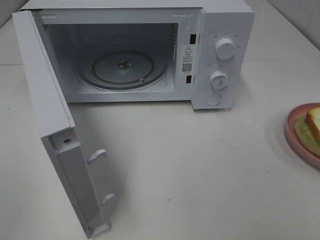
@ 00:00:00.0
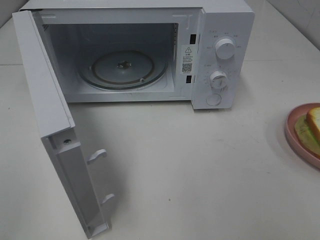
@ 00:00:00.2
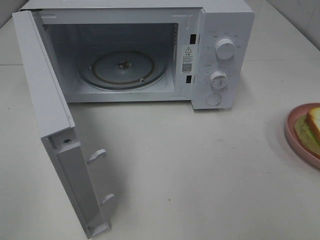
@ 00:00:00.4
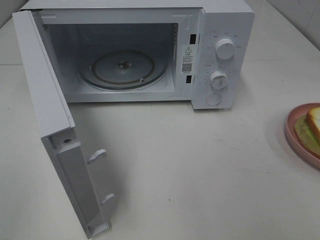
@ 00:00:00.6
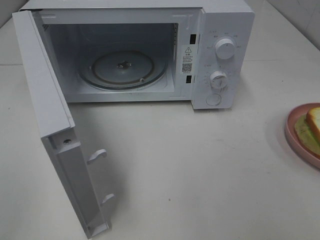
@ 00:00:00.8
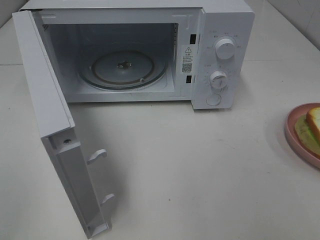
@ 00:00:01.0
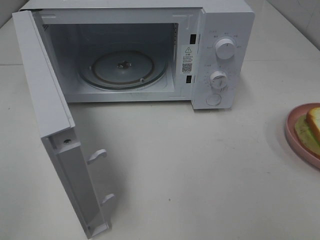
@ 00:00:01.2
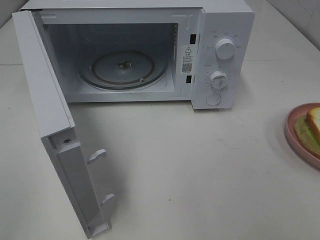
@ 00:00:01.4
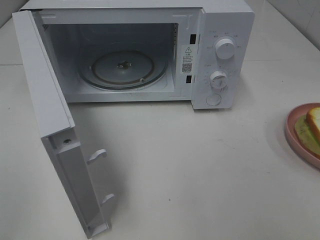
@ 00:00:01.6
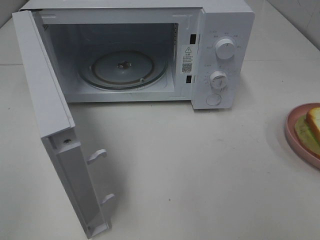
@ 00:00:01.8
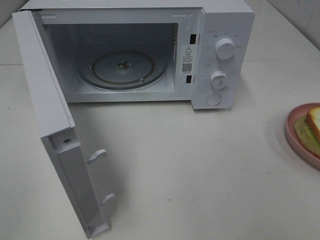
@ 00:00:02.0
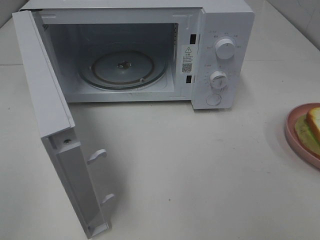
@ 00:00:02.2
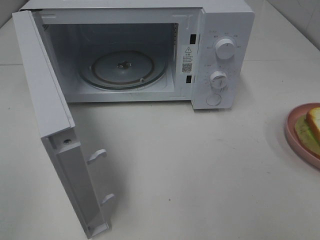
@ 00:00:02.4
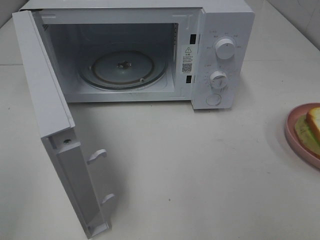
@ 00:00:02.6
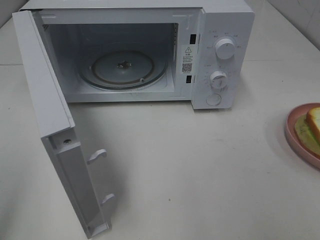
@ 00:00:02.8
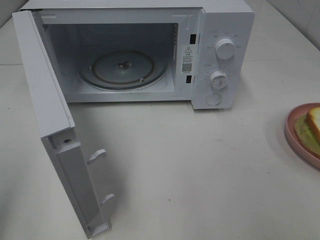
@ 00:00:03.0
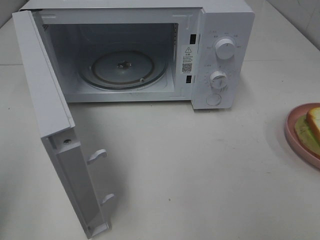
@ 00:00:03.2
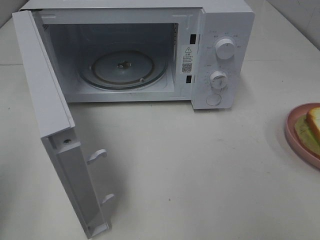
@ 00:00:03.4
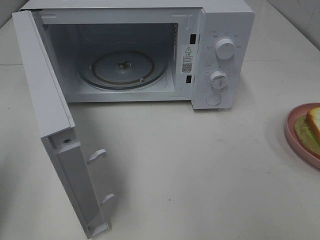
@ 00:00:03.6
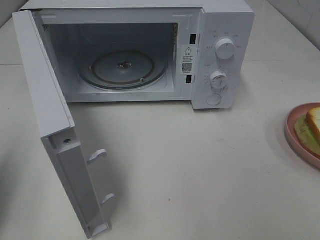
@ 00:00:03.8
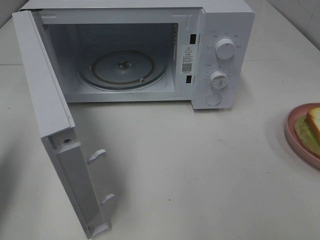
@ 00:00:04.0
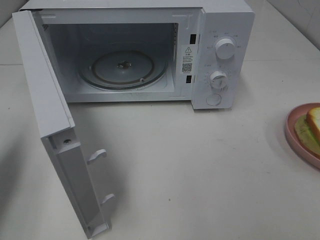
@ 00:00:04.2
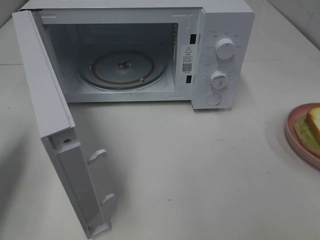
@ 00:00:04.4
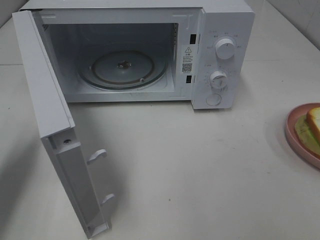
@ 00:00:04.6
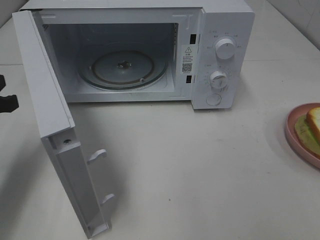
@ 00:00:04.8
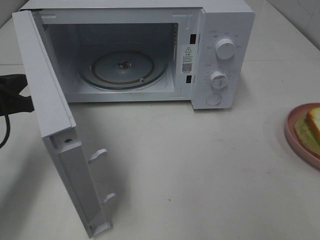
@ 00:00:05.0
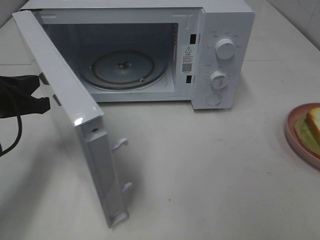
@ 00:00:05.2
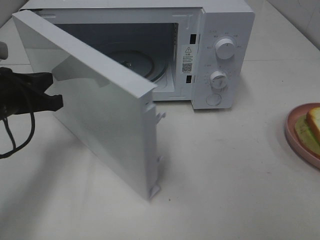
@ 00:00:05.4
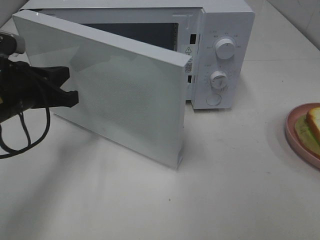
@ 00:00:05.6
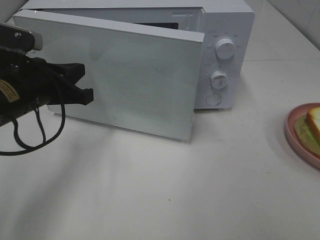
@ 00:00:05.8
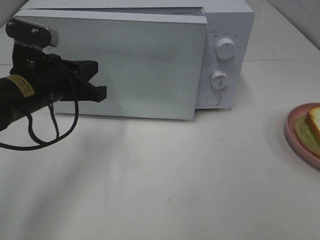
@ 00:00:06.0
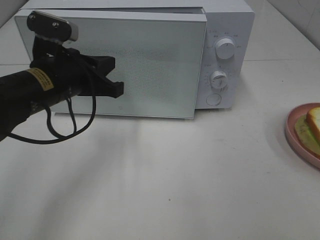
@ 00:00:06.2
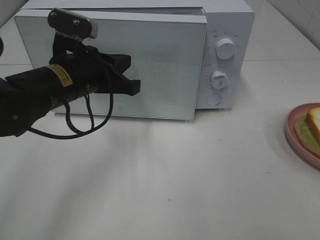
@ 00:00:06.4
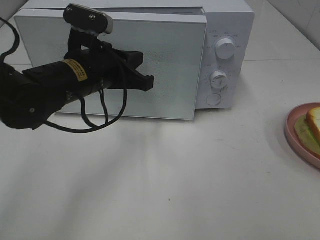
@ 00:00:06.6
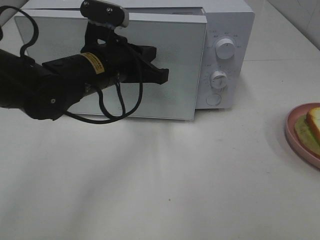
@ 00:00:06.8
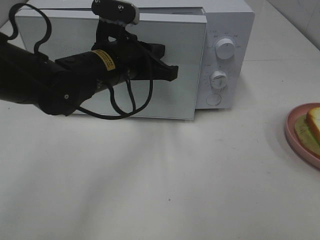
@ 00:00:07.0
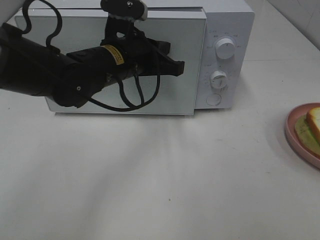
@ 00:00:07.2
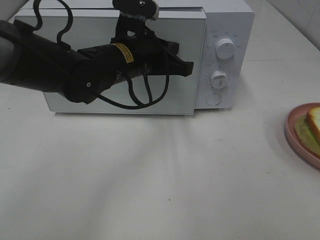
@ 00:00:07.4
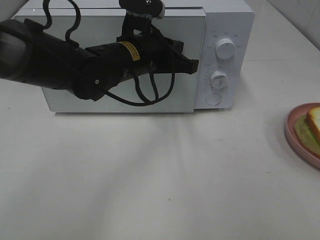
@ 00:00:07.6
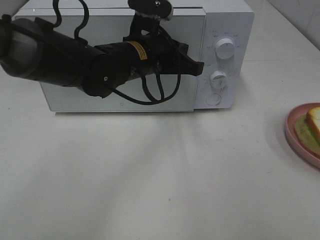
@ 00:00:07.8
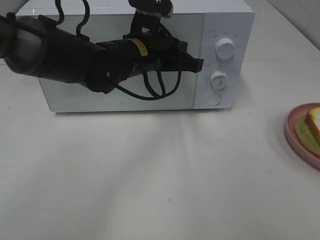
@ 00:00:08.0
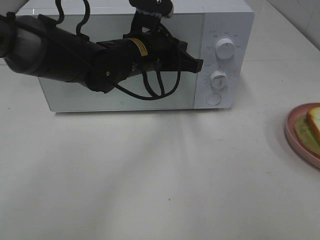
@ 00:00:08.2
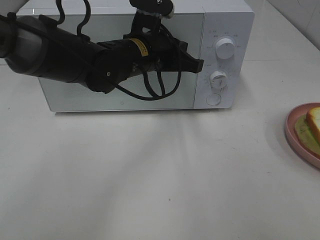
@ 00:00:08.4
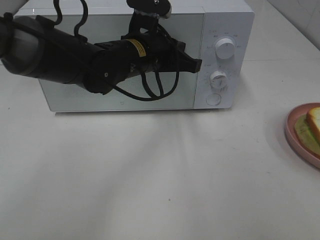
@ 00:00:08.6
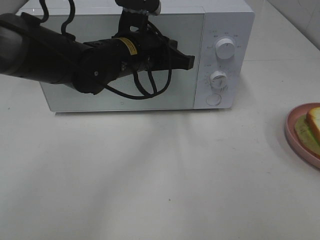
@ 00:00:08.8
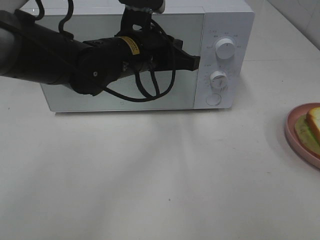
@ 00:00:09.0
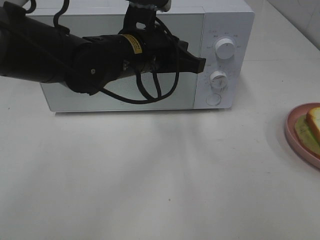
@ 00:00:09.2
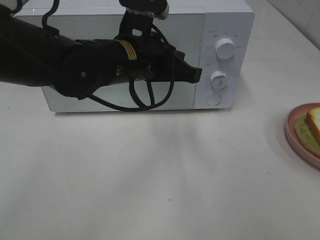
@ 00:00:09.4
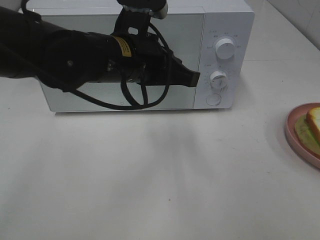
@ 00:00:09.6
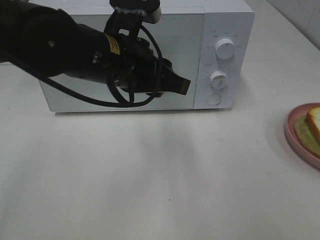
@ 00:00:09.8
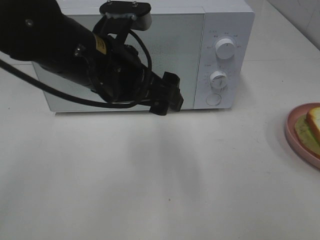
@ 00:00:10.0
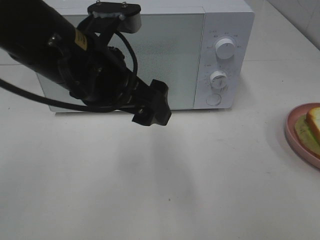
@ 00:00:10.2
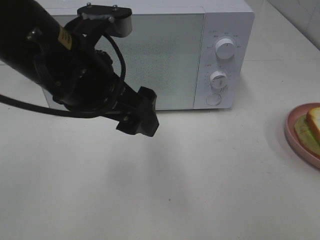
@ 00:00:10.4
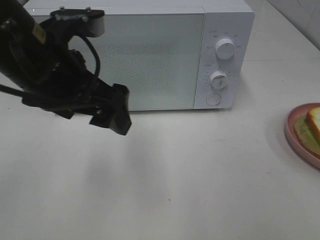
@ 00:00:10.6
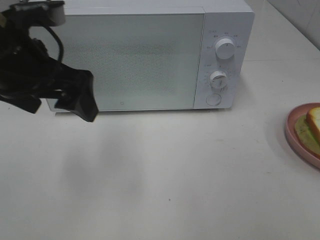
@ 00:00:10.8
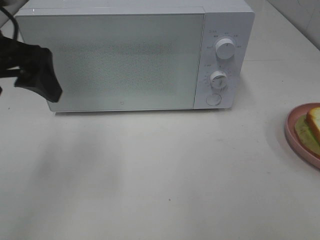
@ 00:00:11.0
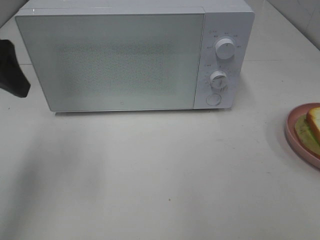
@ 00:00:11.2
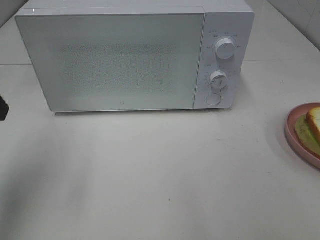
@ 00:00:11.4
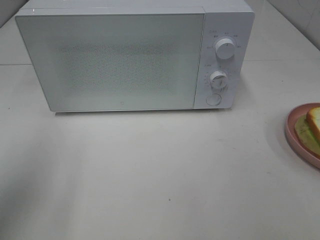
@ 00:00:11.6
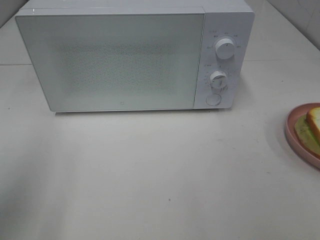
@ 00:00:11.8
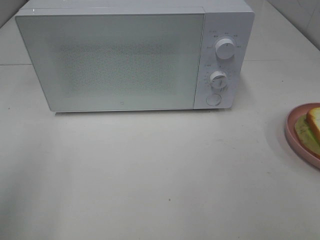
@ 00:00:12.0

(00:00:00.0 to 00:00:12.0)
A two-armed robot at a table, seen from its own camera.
Task of the whole recording: Heat Sandwich.
Step, 00:00:00.0 - 00:00:09.4: Left hand: close the microwave door.
00:00:00.0 - 00:00:01.6: The two grippers keep their place.
00:00:03.0 - 00:00:04.4: The left gripper travels forward and downward by approximately 20 cm, and closes up.
00:00:04.4 - 00:00:06.0: The left gripper travels to the right and forward by some 15 cm.
00:00:06.0 - 00:00:07.6: The left gripper shifts roughly 15 cm to the right and forward.
00:00:07.6 - 00:00:09.0: The grippers make only small movements.
00:00:09.0 - 00:00:10.4: The left gripper moves backward, to the left and upward, about 15 cm, and opens its fingers.
00:00:10.4 - 00:00:12.0: The left gripper shifts approximately 25 cm to the left and backward.

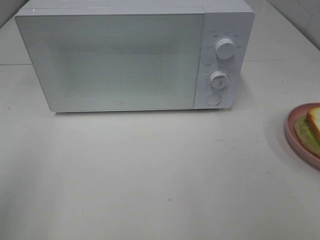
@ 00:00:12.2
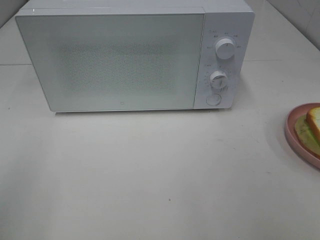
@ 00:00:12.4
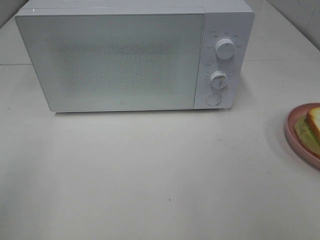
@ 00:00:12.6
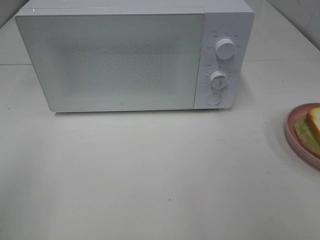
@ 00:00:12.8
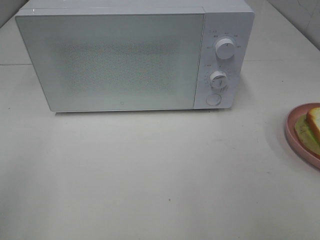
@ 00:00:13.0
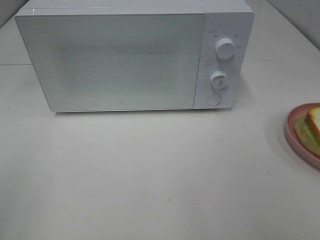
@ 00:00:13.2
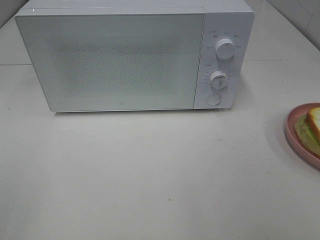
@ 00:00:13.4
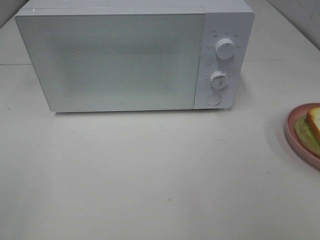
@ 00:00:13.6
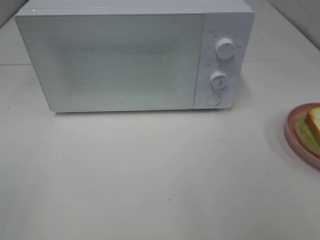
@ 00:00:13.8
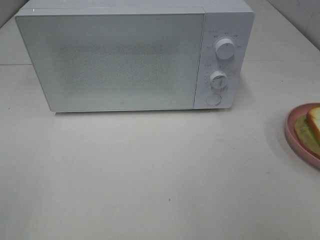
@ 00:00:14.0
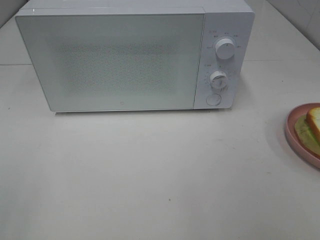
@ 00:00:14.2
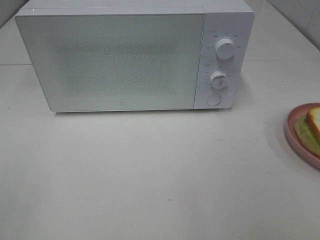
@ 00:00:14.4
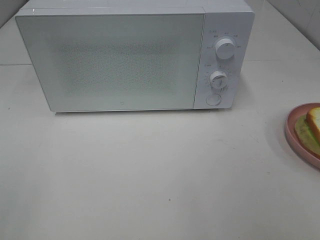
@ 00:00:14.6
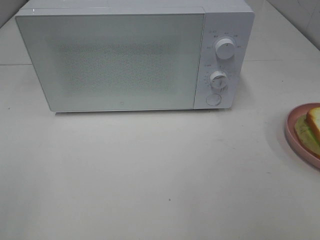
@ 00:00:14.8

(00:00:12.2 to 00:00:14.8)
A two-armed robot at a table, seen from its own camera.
Task of the whole recording: Heat Sandwich.
00:00:13.4 - 00:00:14.8: The two grippers keep their place.
